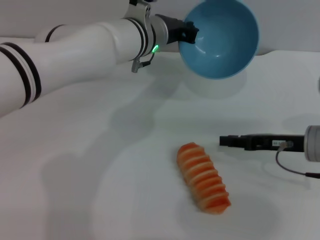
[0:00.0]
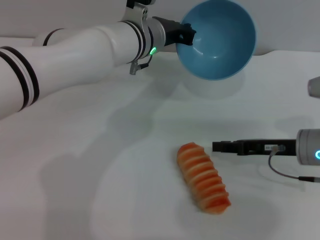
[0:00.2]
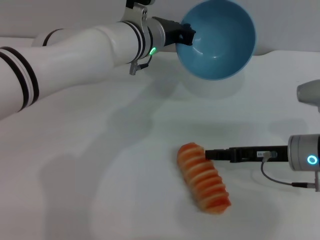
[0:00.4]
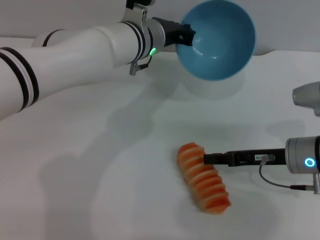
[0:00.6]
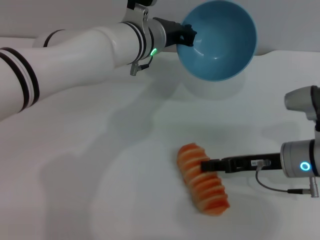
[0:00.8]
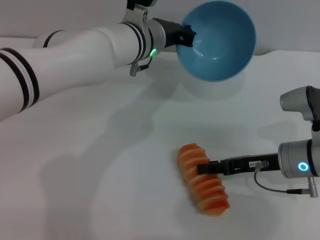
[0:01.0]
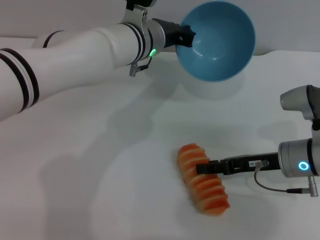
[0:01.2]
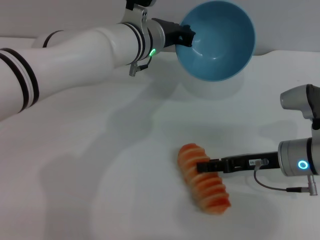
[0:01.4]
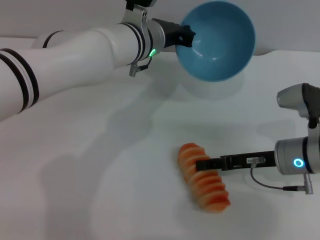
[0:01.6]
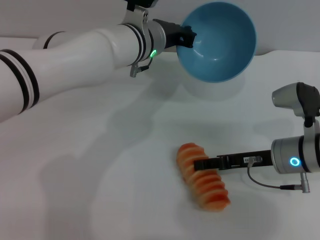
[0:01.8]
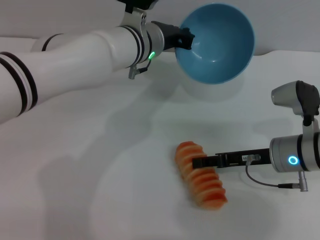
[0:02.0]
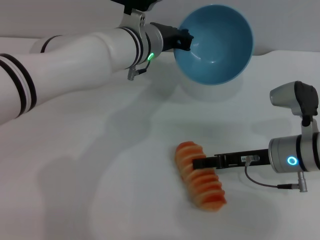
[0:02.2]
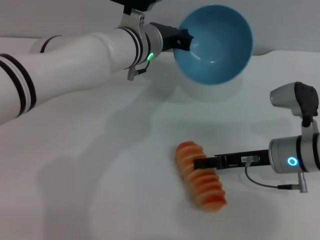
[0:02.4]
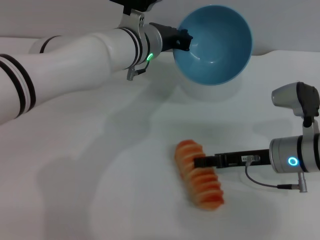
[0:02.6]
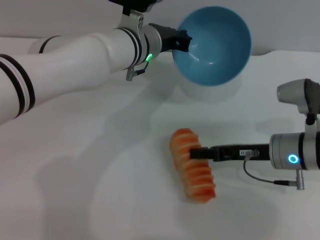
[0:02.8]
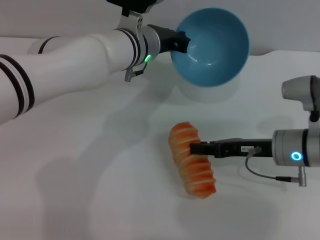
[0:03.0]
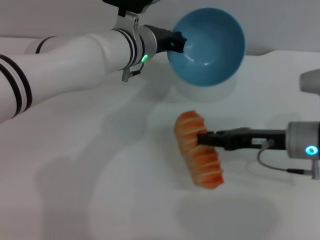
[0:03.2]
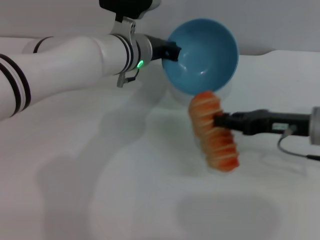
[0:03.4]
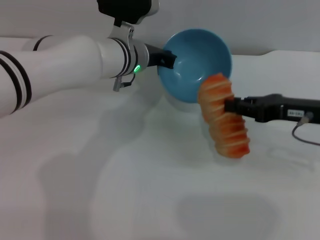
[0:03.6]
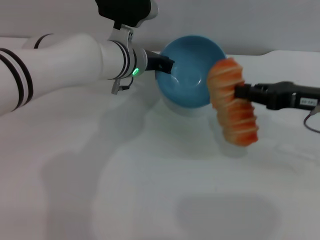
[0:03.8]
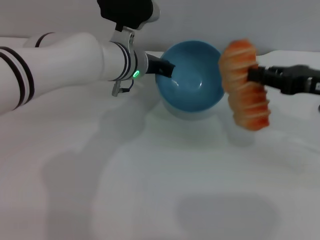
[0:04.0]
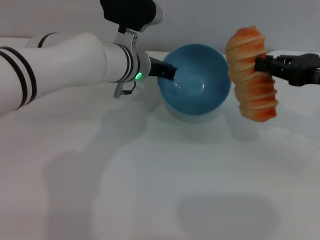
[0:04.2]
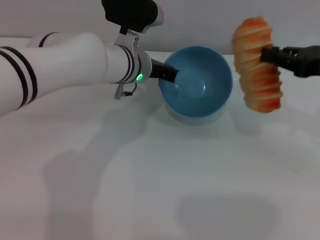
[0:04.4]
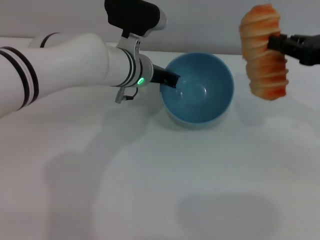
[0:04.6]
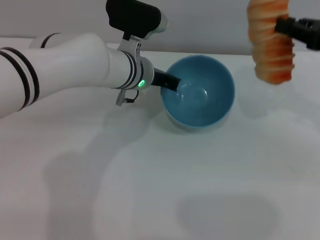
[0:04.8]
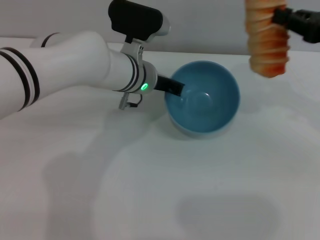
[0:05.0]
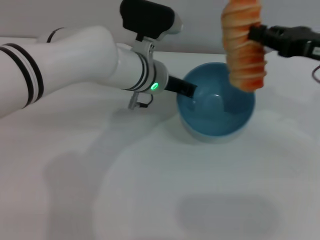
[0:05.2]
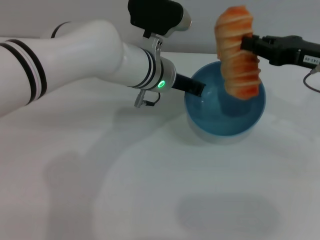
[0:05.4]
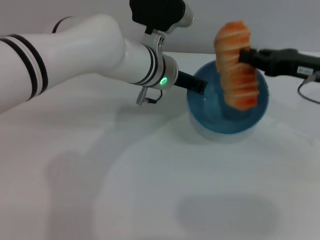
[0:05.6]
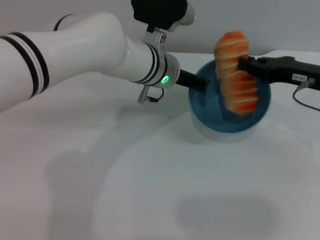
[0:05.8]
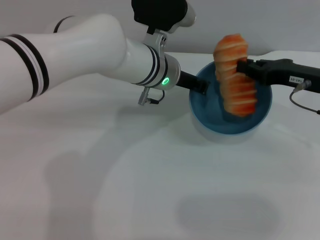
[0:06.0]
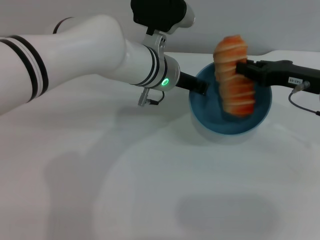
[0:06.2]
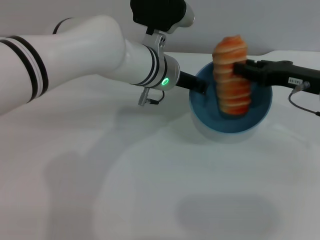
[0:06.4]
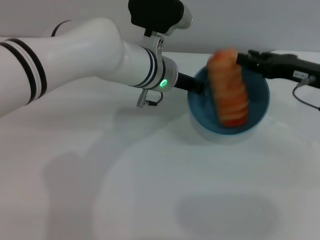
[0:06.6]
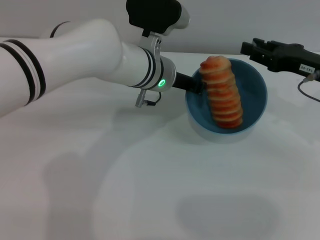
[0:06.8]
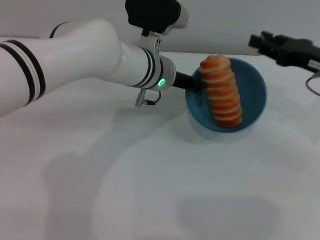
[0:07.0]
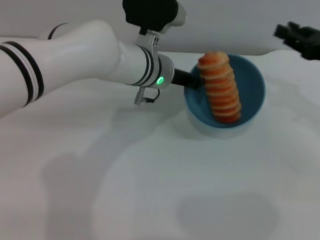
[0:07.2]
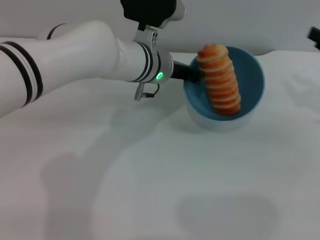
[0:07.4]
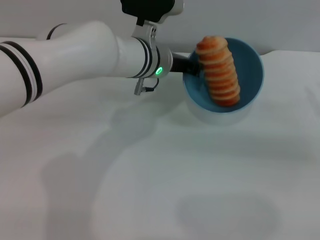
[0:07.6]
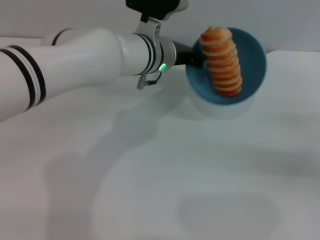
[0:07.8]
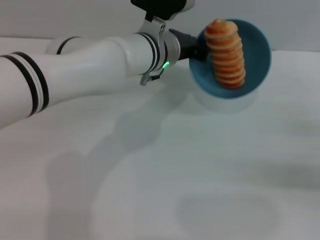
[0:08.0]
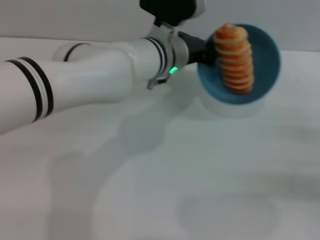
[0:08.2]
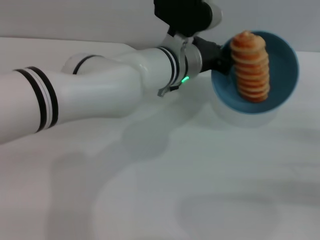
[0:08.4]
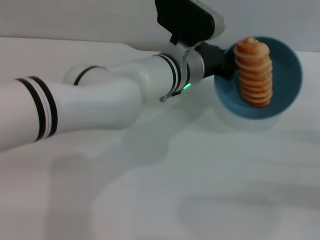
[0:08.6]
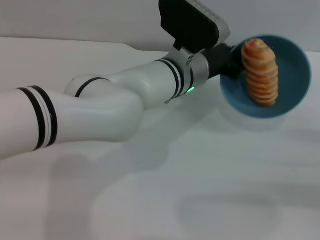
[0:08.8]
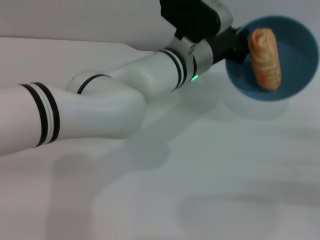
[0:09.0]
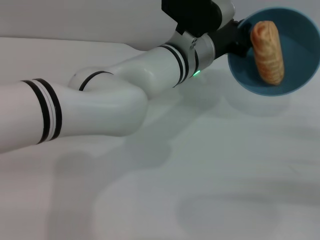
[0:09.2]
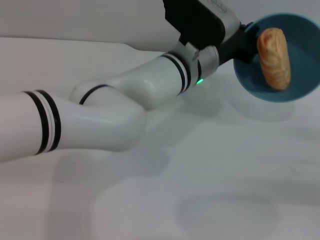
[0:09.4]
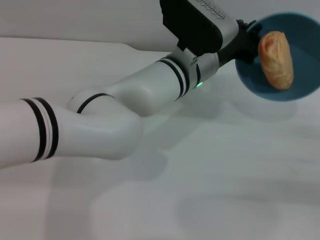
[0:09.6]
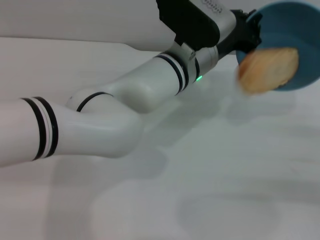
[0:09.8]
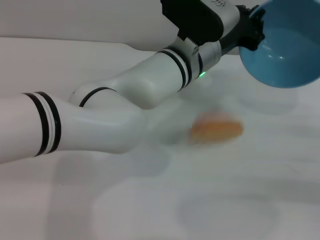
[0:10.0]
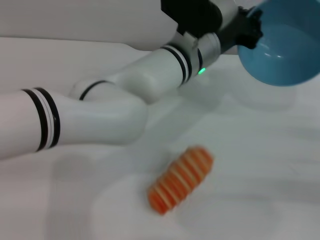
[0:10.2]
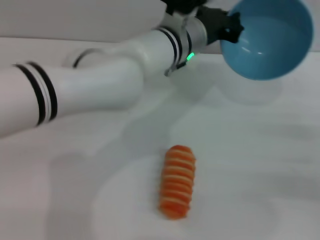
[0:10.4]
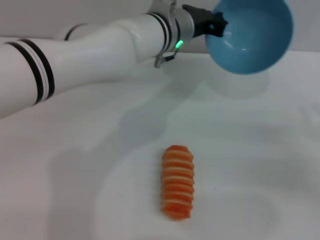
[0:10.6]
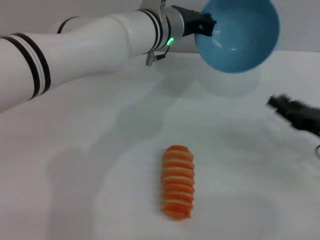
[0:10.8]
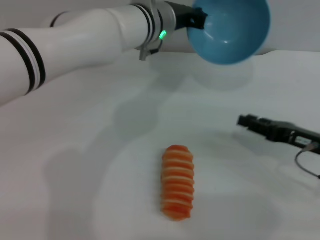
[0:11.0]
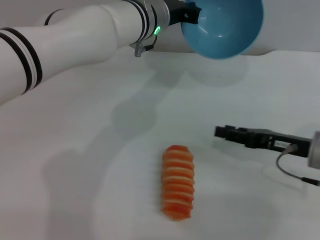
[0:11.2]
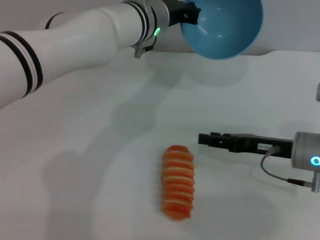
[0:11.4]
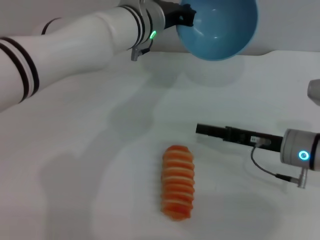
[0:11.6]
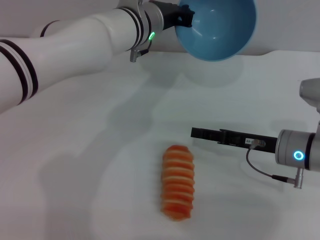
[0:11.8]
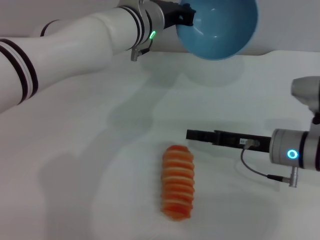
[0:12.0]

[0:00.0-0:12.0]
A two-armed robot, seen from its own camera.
Task of the whole recording: put the bread into the blue bowl and pour it out repeatedly.
Step, 0.0 to 3.8 s: Pick up the bread with the right gripper.
Step, 4.0 to 6.8 s: Place the bread into the bowl.
Step, 7.0 to 10.4 s: Pour the bread out of the bowl.
0.0 to 1.6 s: The grippers stay close to where they were, moving slightly.
1.6 to 3.0 s: The right gripper closes up.
3.0 to 4.4 s: The right gripper goes approximately 15 cm upward and to the right.
4.4 to 6.0 s: The right gripper heads downward, covering some 5 cm.
6.0 to 7.6 s: The right gripper heads to the right and backward, covering some 10 cm, and opens up.
7.6 to 9.0 s: The left gripper ends up roughly 5 cm from where it was; the right gripper is displaced backward by some 5 cm.
10.4 to 12.0 s: The right gripper moves to the left and forward, about 15 cm. The left gripper is displaced to the left by some 5 cm.

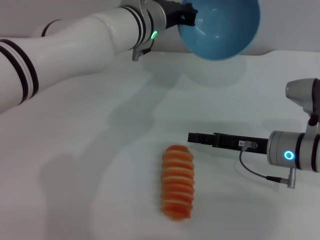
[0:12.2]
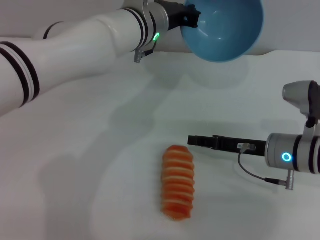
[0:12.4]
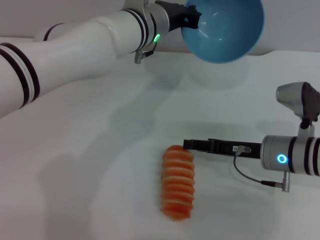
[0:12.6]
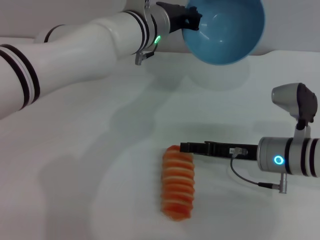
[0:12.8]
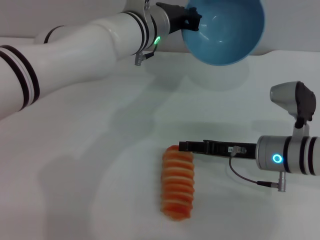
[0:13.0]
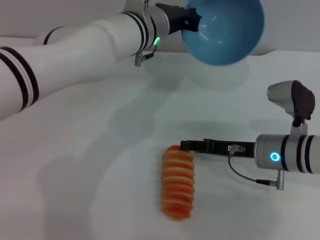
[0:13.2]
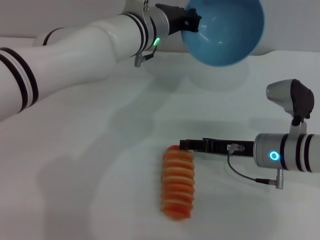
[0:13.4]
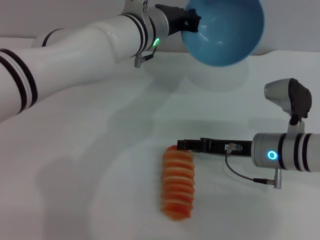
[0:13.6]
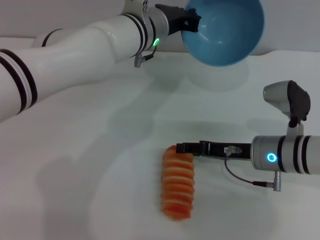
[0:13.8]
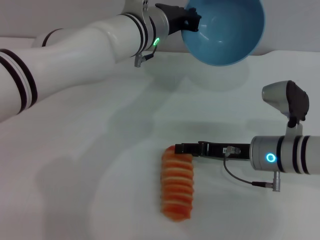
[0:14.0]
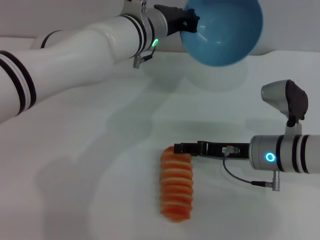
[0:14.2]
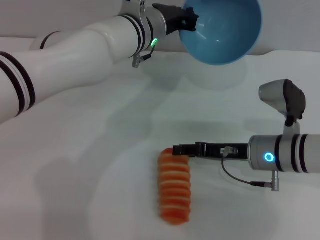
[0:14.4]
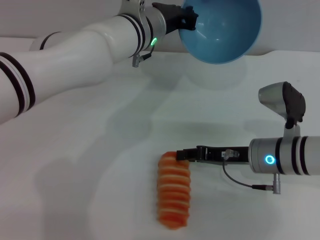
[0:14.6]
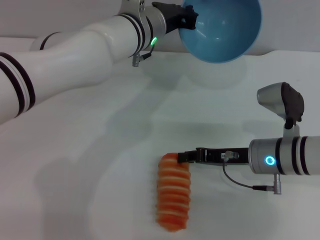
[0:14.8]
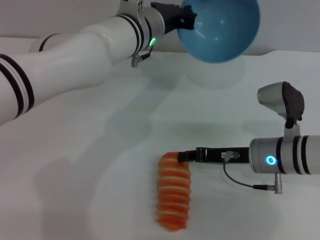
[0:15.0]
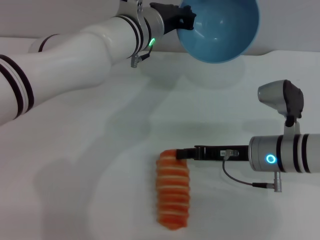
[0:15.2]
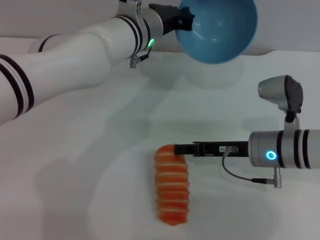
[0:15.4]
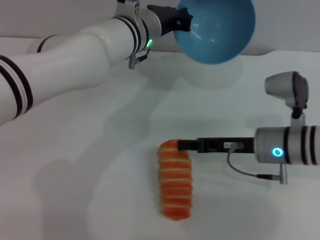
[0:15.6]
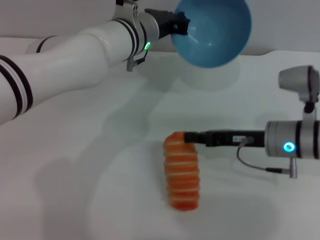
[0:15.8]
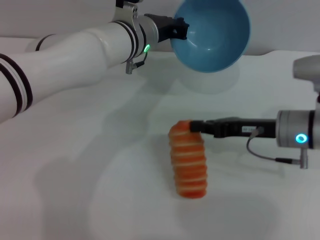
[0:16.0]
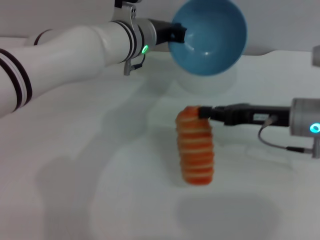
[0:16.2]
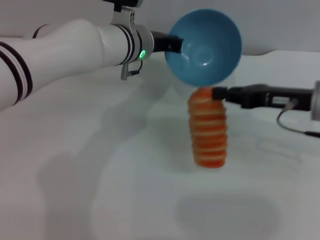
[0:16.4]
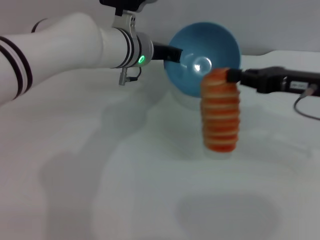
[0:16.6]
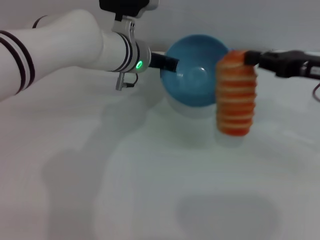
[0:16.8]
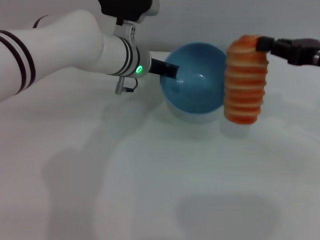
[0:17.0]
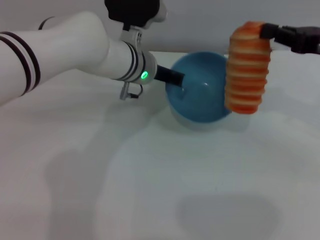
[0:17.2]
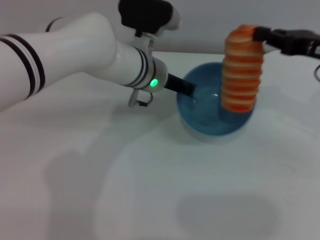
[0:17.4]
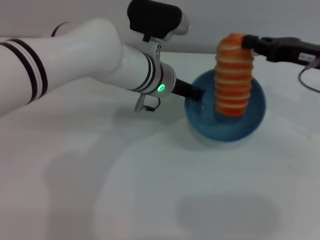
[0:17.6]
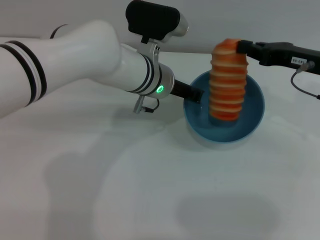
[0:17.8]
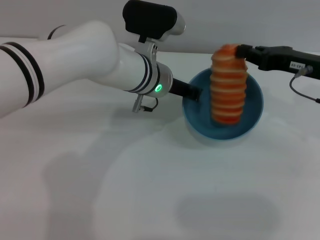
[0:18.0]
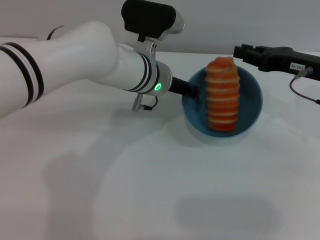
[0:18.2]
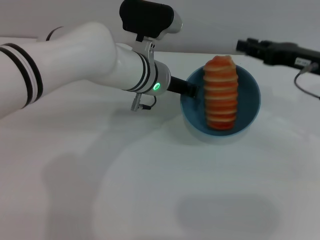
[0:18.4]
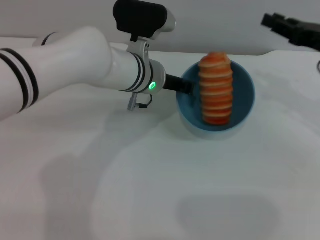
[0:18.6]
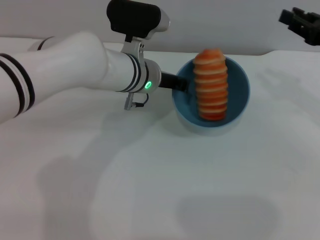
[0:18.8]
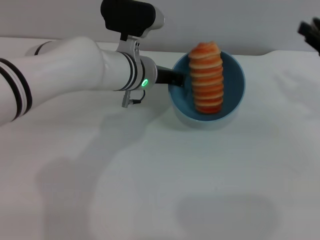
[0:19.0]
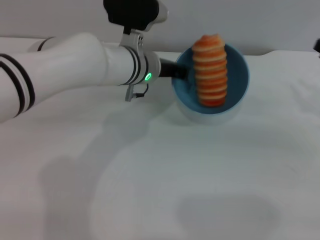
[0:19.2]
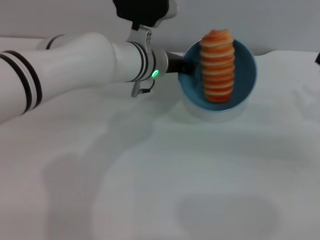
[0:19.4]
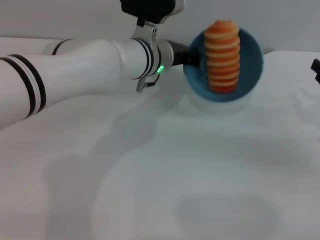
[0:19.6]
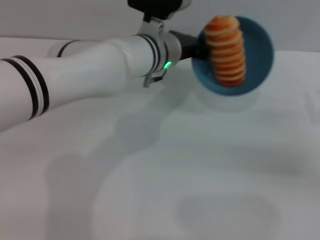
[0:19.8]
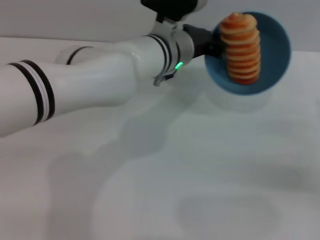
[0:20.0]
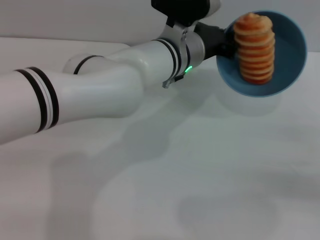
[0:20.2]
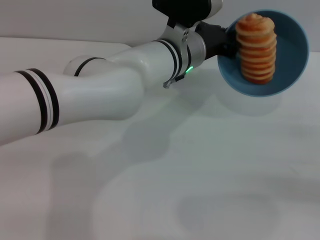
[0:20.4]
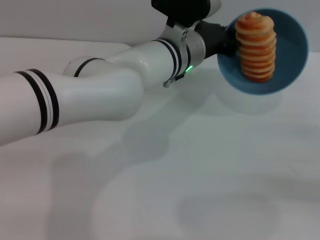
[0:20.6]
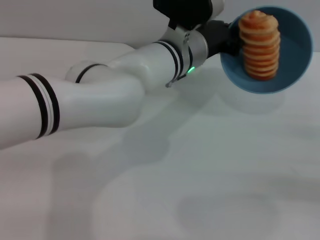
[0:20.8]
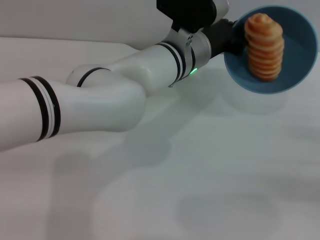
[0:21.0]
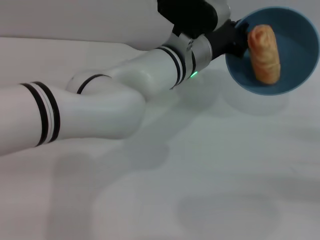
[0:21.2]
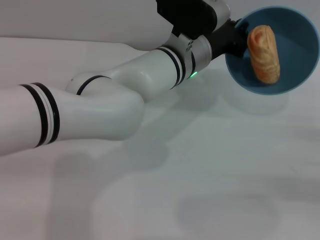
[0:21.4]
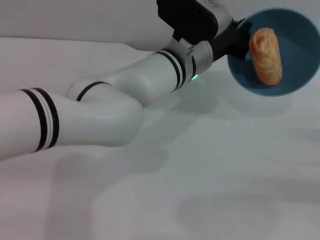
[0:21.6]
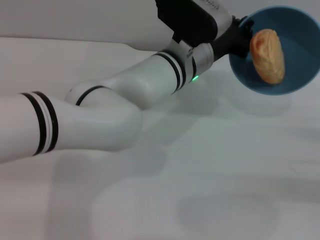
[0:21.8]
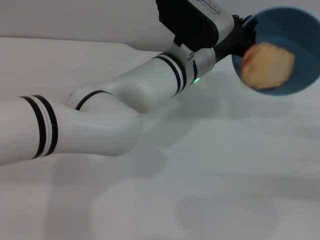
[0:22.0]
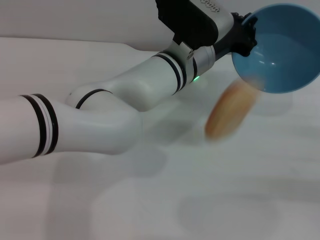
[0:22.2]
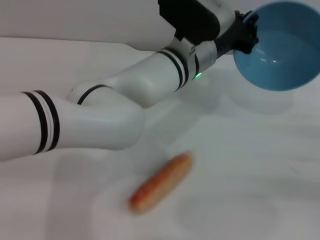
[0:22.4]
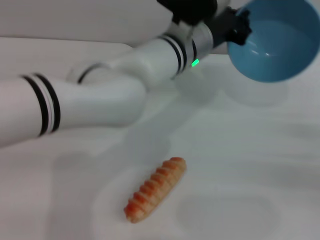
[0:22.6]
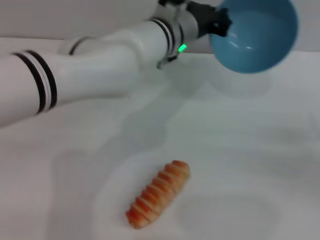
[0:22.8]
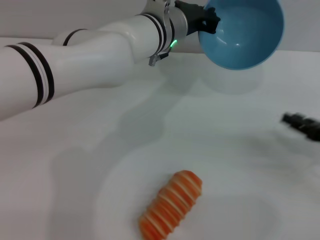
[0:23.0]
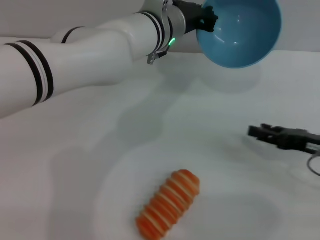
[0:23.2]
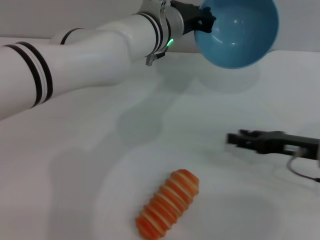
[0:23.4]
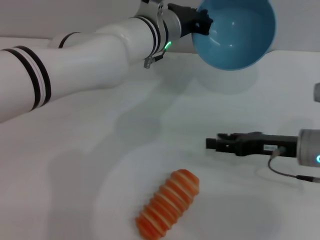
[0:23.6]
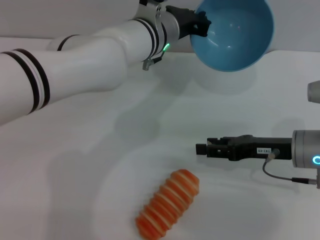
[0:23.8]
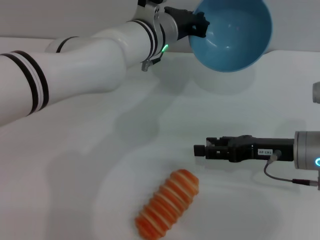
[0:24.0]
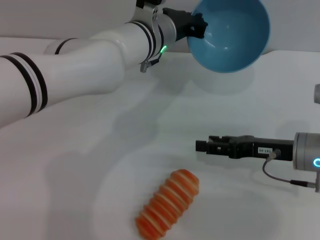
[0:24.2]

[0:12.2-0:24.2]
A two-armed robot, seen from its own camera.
Task of the whole recording: put the bread into the blue bowl and pour it out repeatedly.
Step, 12.2 to 16.4 s: Pick up the bread with the right gripper.
Step, 16.8 to 18.4 s: Place the bread into the bowl.
Step, 18.6 to 22.8 s: Pour the bread out of the bowl.
12.2 to 13.8 s: There are only small adjustments of the grippers.
13.8 to 15.2 s: The right gripper closes up.
15.2 to 16.6 s: The right gripper travels upward and to the right by approximately 15 cm.
18.2 to 19.8 s: The right gripper is displaced to the right, backward and downward by some 15 cm, and opens its fingers.
19.8 to 21.2 s: The right gripper shifts some 5 cm backward.
21.2 to 22.6 s: The grippers move only a little.
22.6 to 24.2 s: The right gripper shifts approximately 15 cm to the left, and opens up. The left gripper changes place by some 5 cm.
